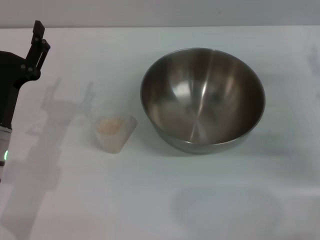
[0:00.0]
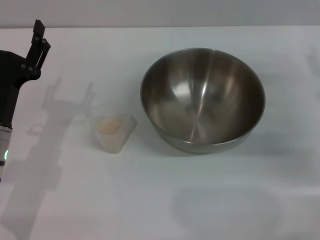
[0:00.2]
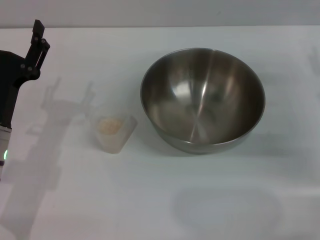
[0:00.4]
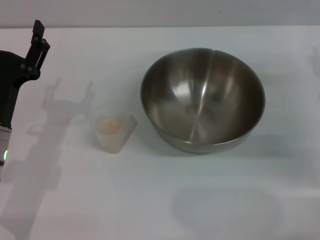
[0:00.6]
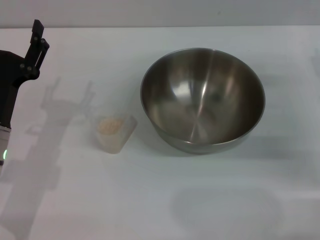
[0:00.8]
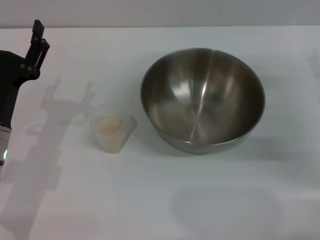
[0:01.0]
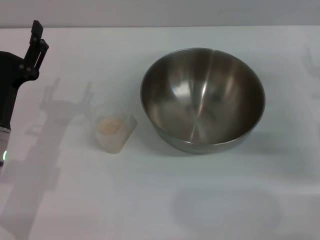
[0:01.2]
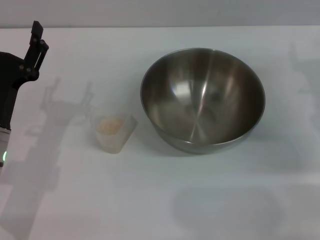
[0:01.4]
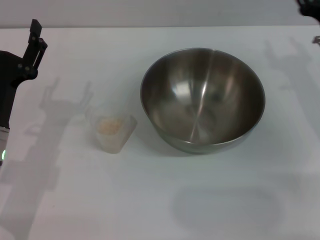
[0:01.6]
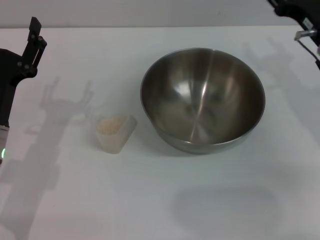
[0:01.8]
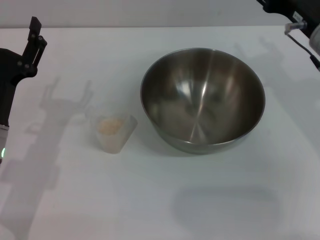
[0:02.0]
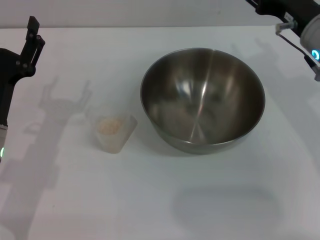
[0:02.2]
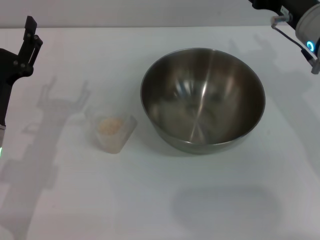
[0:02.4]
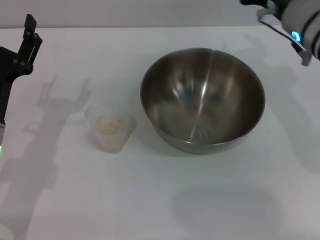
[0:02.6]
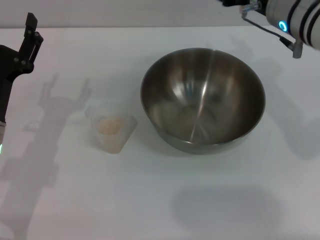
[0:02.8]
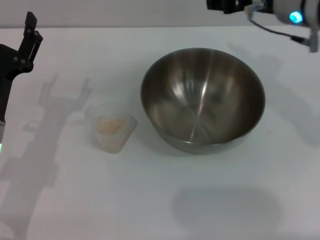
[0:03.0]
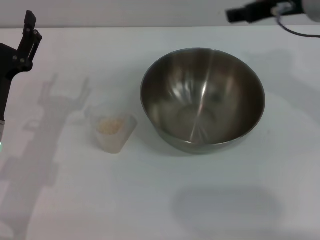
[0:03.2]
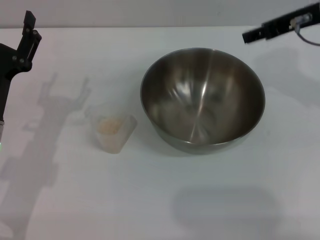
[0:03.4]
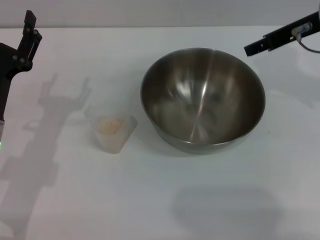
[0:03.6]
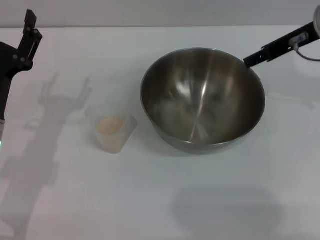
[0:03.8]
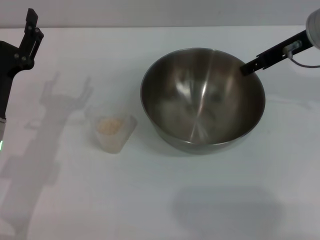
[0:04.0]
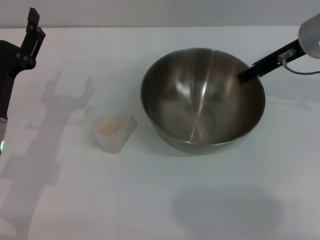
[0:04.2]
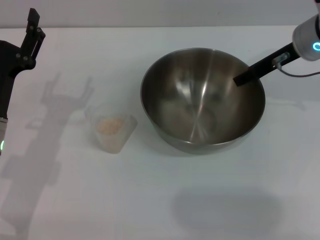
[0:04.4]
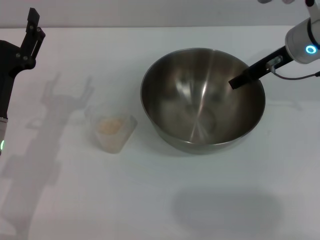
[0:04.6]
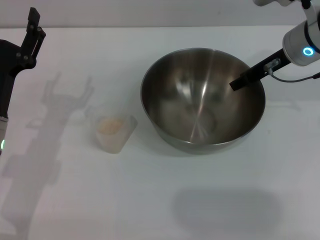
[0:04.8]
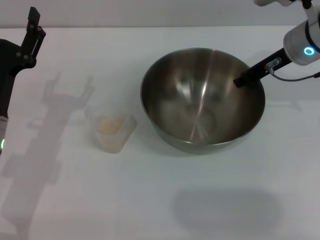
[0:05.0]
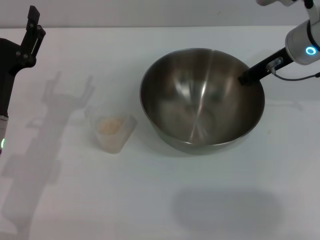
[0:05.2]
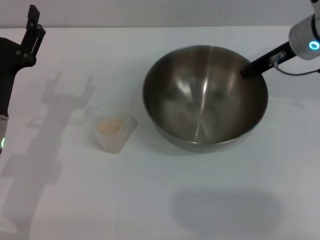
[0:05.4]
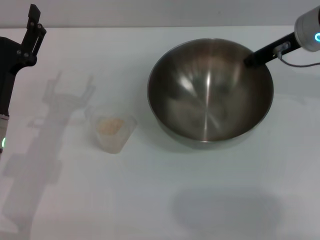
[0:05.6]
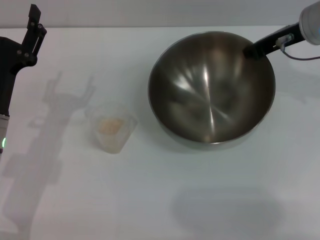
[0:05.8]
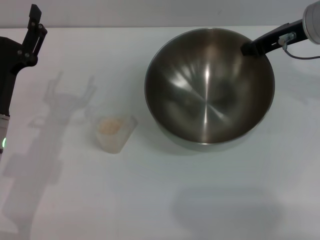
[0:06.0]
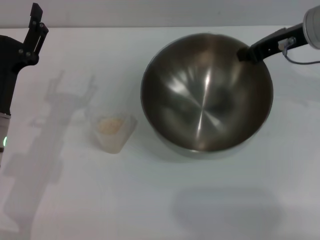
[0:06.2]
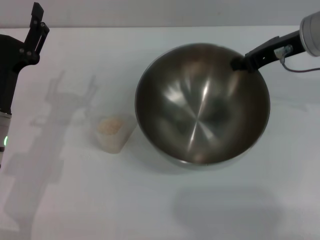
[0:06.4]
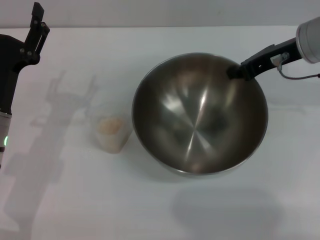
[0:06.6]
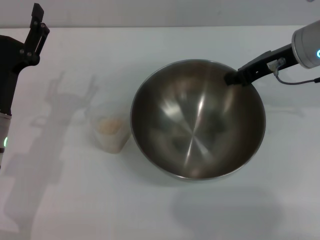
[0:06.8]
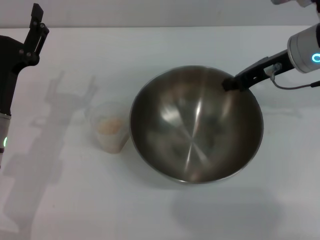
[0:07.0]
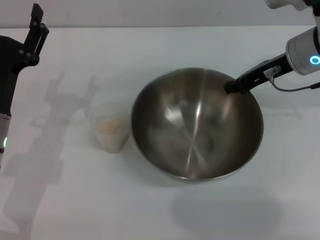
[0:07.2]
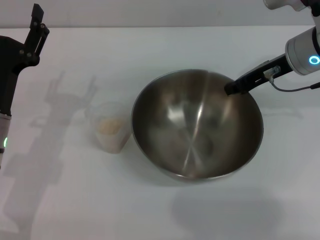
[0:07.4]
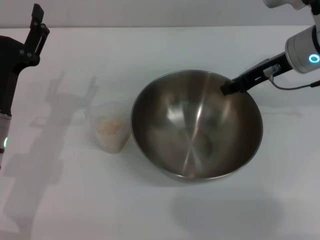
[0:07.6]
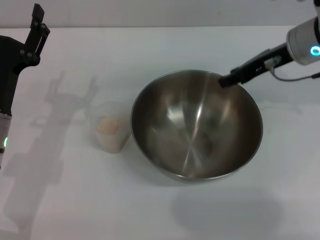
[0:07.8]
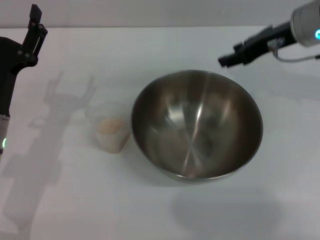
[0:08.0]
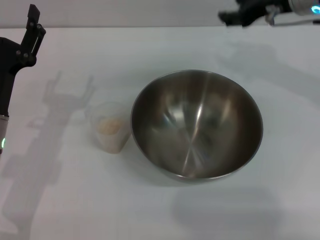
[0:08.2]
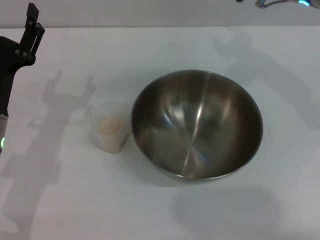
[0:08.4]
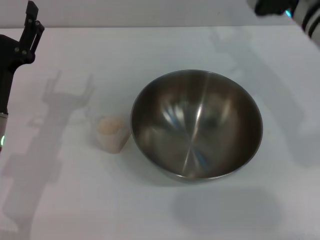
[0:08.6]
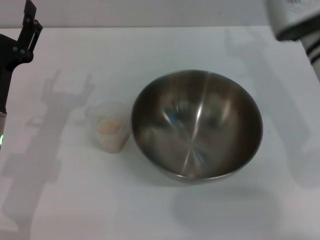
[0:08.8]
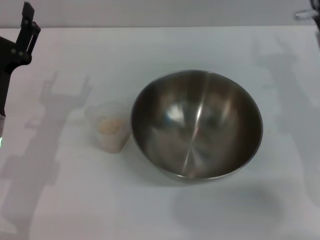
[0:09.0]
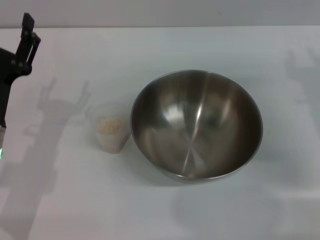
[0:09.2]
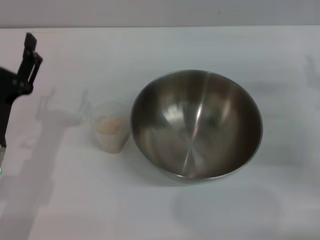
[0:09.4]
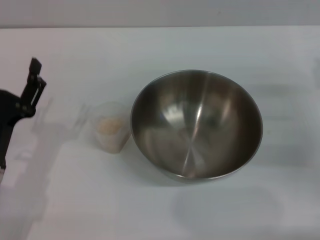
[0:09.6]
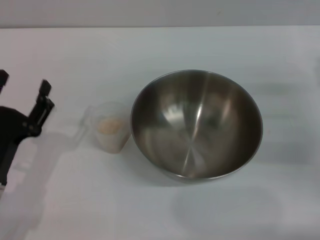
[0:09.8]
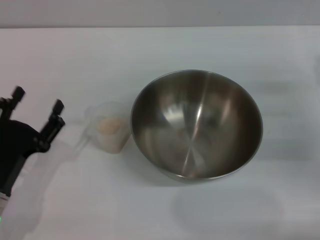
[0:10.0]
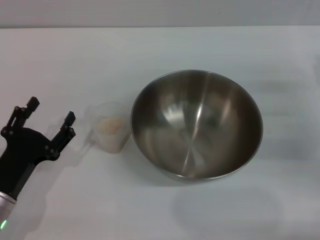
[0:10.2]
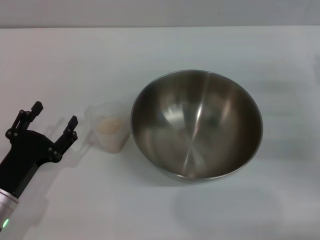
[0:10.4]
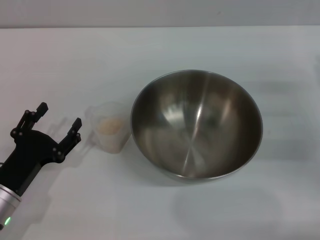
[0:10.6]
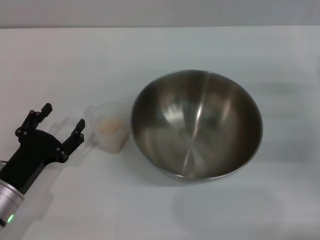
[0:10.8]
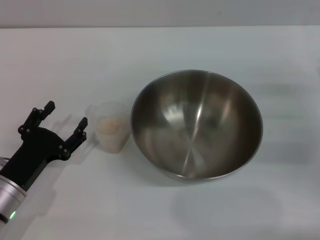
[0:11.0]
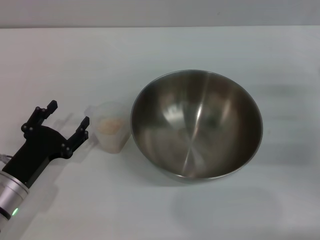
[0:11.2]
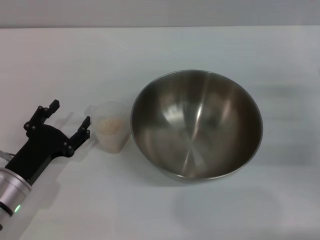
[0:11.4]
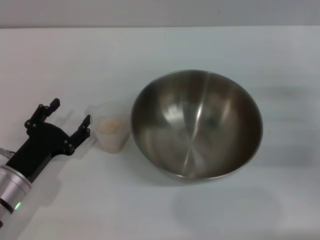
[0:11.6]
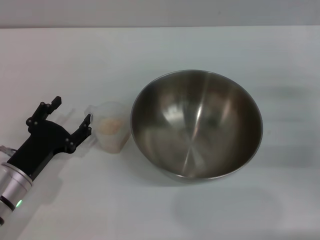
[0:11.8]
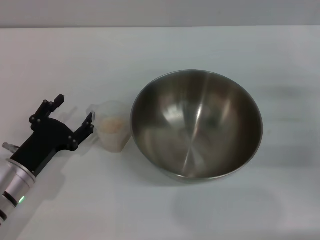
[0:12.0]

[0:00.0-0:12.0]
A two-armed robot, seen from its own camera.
Task of the whole recording: Place the bowl in the middle of the table with one hand and pour the rice from the grain cup into it with the other hand.
Step, 0:00.0 to 0:05.4: Pick up the bowl with the right gripper.
Step, 0:05.6 to 0:07.8: Place the bowl in the center of view with the right gripper.
0:00.0 to 0:01.6: The right gripper changes place by roughly 5 cm.
0:01.6 to 0:03.0: The right gripper travels upward and to the left by approximately 15 cm.
0:03.0 to 0:04.4: The right gripper shifts some 5 cm downward.
0:04.4 to 0:06.0: The right gripper closes.
0:07.6 to 0:09.0: The right gripper is displaced backward by about 5 cm, and opens up.
0:09.0 to 0:10.4: The right gripper goes roughly 10 cm to the right and downward. Meanwhile the left gripper heads backward and downward, covering about 10 cm.
0:10.4 to 0:12.0: The grippers make only small movements.

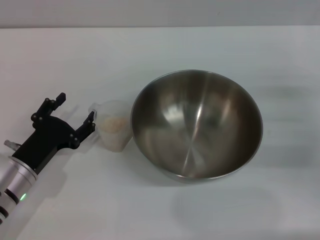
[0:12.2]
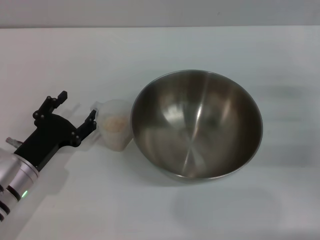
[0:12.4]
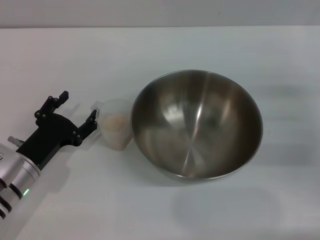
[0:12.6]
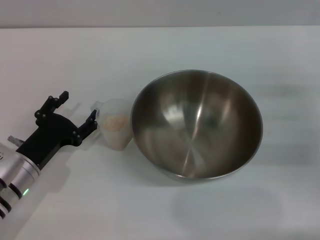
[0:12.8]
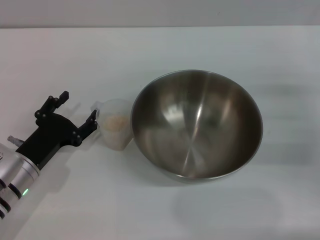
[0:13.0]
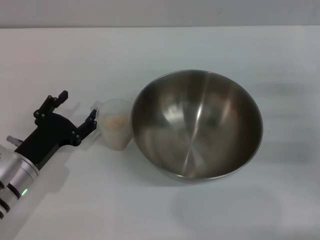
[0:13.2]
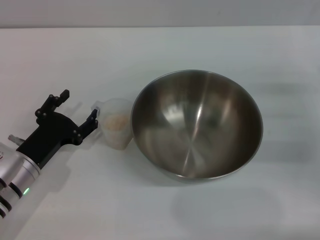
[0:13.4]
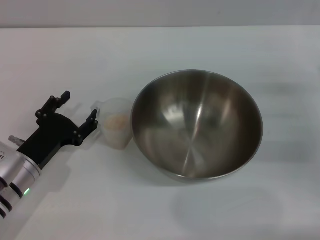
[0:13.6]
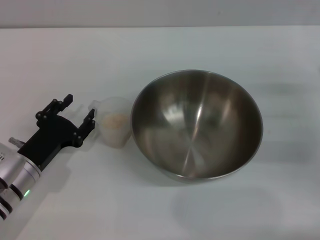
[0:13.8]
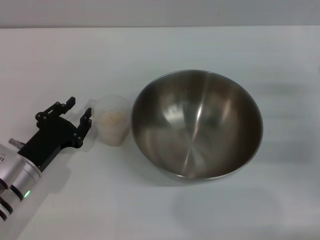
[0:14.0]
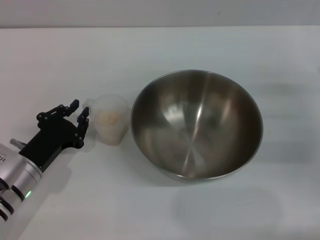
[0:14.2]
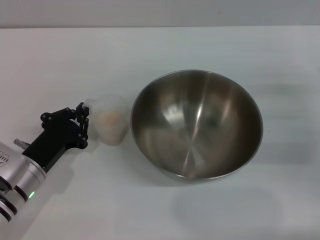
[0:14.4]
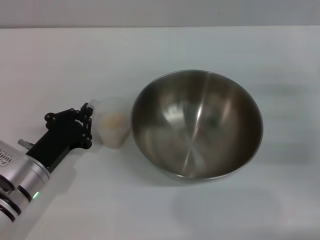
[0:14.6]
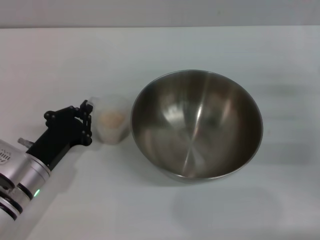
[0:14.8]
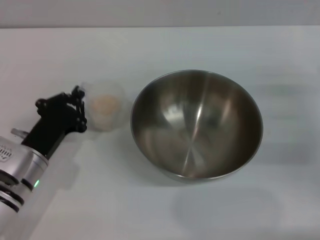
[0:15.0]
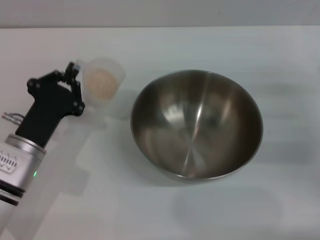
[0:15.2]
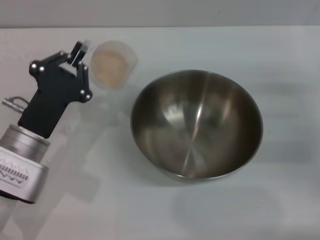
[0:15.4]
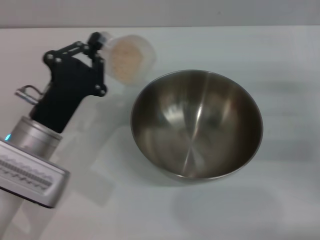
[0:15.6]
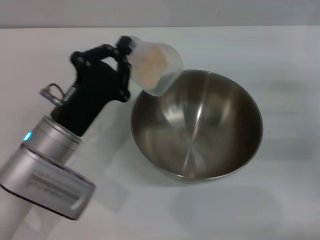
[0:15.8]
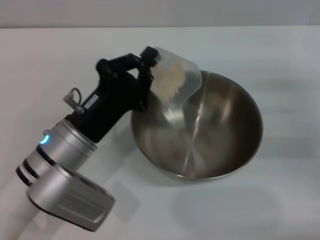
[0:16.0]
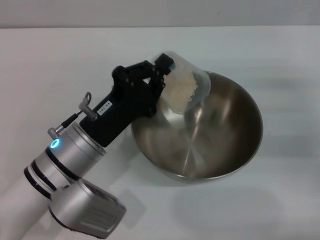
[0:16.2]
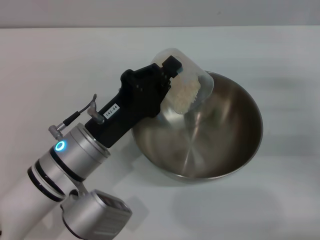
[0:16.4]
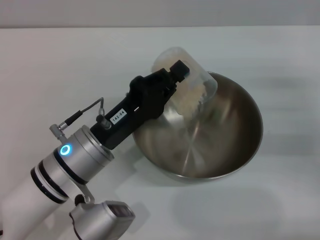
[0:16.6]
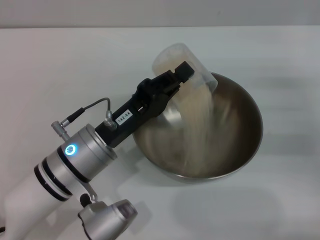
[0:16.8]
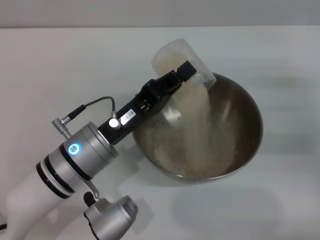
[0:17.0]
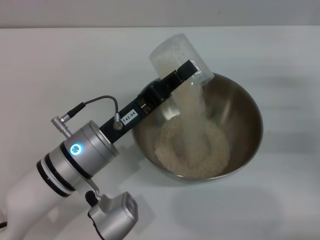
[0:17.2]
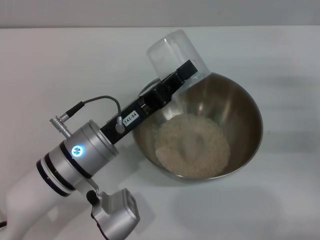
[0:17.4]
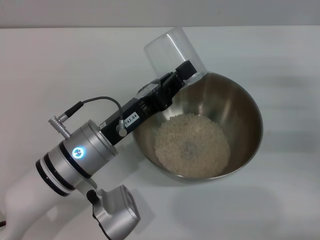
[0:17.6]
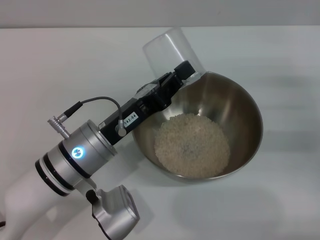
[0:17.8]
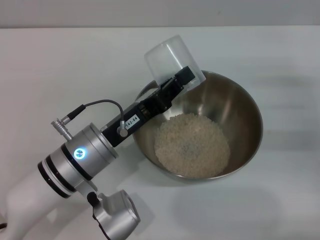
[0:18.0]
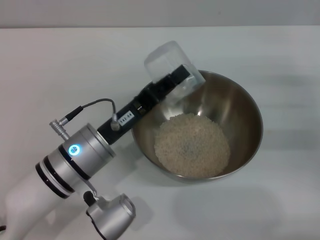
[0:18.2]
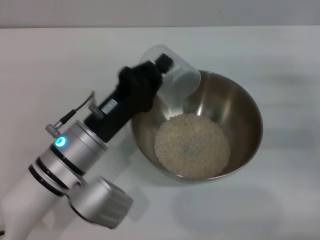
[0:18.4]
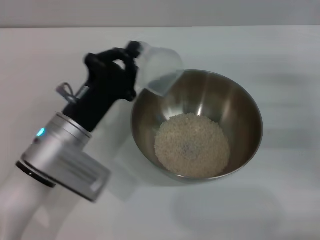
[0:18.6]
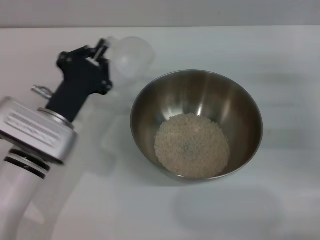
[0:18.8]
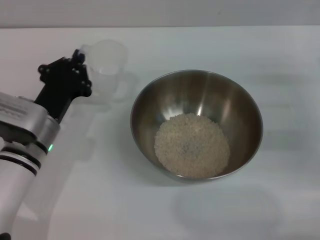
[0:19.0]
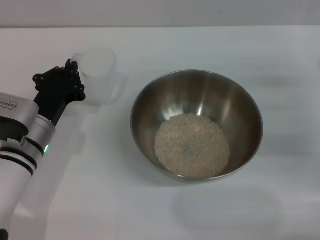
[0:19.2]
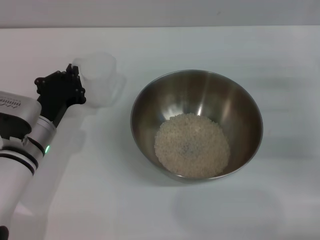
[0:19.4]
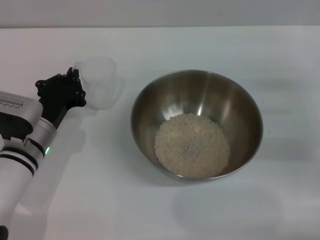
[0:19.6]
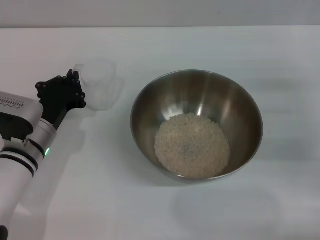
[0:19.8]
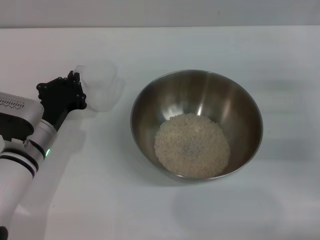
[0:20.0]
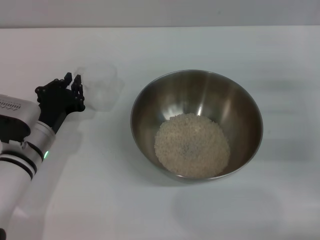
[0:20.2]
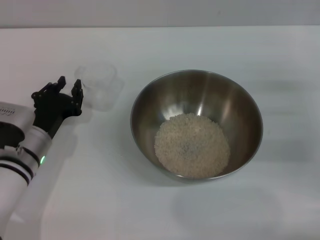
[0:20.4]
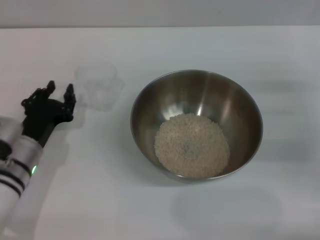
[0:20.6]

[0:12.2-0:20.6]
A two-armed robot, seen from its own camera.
Task of the whole recording: Place the bowl in the middle of the table with one hand and pour the rice from the grain cup into it with the other hand.
Step, 0:12.2 to 0:15.0: Pick up the cup with rice in it with the left gripper.
Step, 0:15.2 to 0:17.8: Pour the rice from the cup into the bowl with the left gripper.
Step, 0:18.0 to 0:20.2: Place the cup on the table with the left gripper.
0:12.2 to 0:13.6: The two grippers keep their place.
0:13.6 to 0:15.0: The left gripper closes up.
0:15.0 to 0:16.4: The left gripper travels to the right and upward by some 10 cm.
0:17.8 to 0:19.2: The left gripper goes approximately 10 cm to the left.
0:19.2 to 0:20.6: The left gripper opens.
